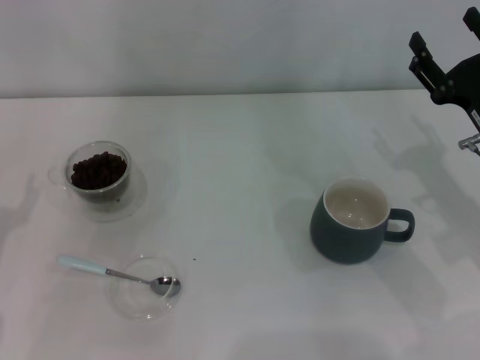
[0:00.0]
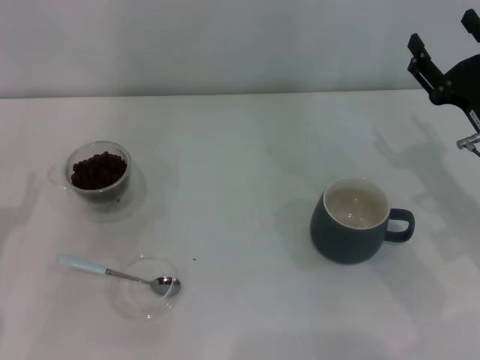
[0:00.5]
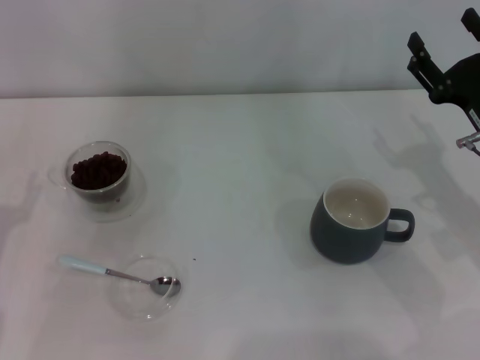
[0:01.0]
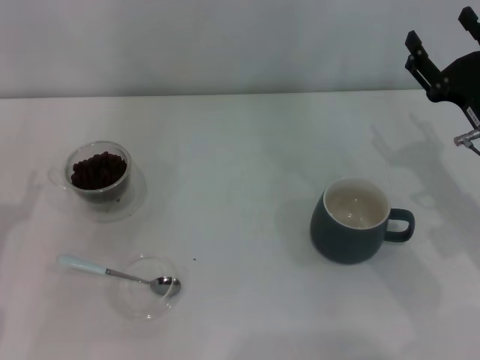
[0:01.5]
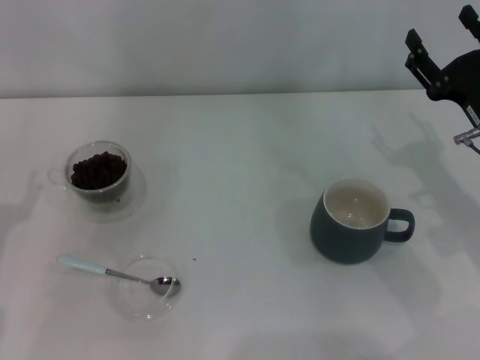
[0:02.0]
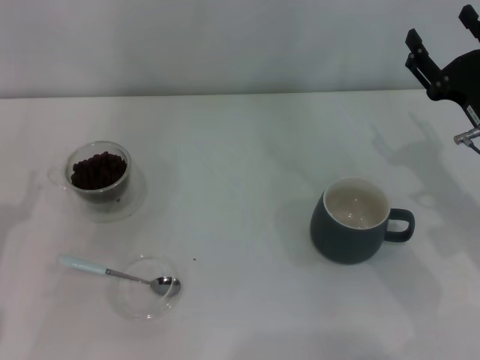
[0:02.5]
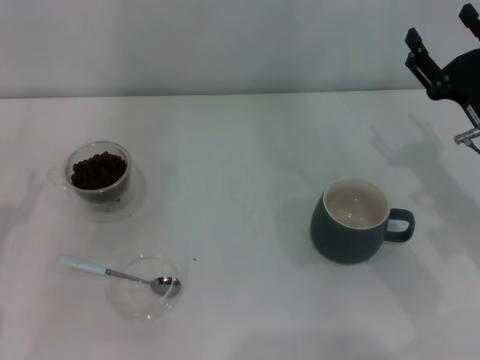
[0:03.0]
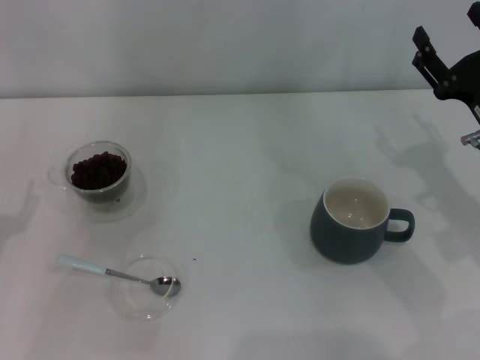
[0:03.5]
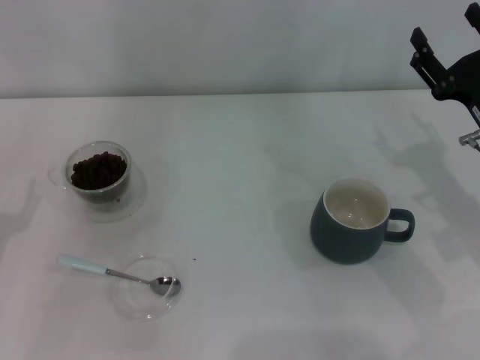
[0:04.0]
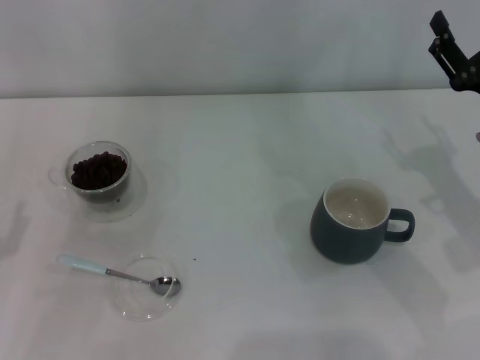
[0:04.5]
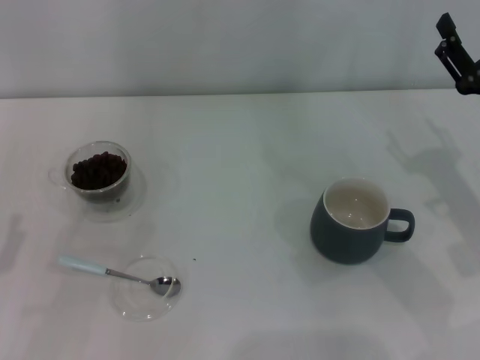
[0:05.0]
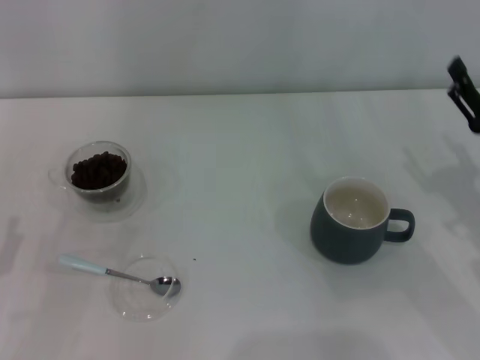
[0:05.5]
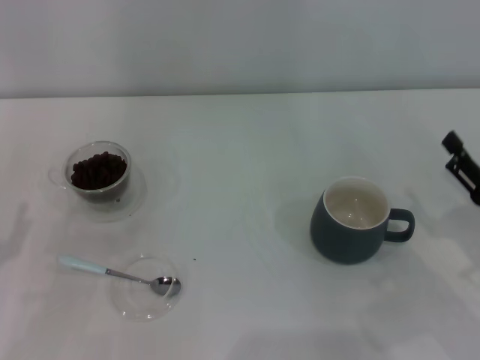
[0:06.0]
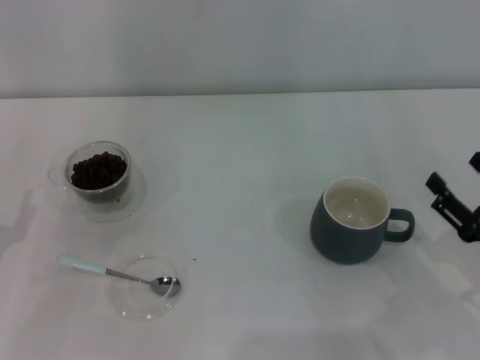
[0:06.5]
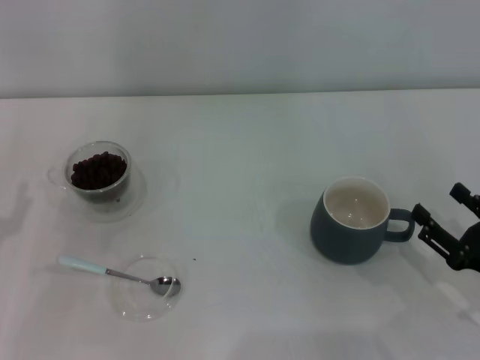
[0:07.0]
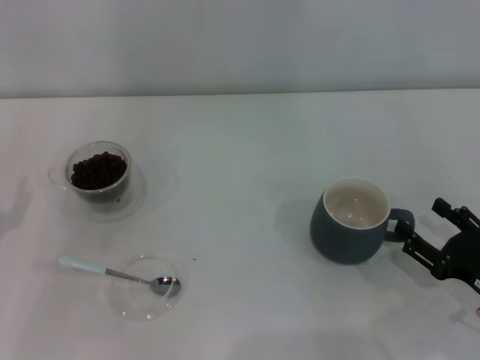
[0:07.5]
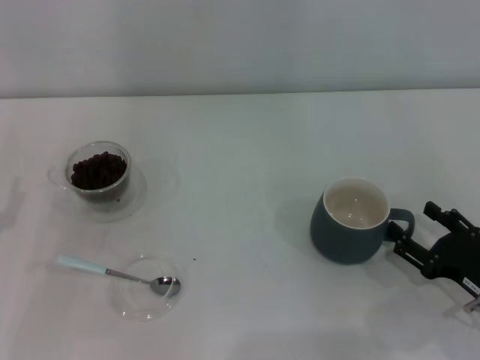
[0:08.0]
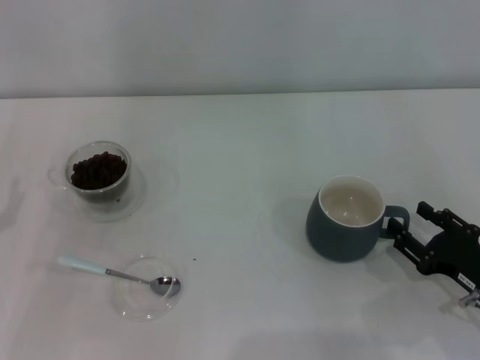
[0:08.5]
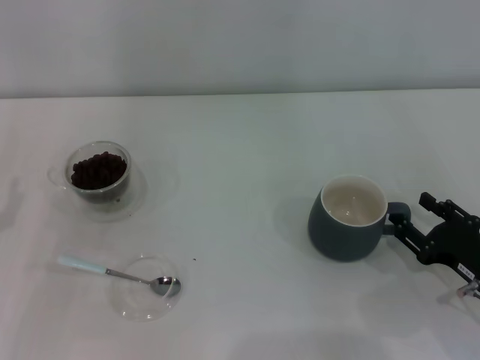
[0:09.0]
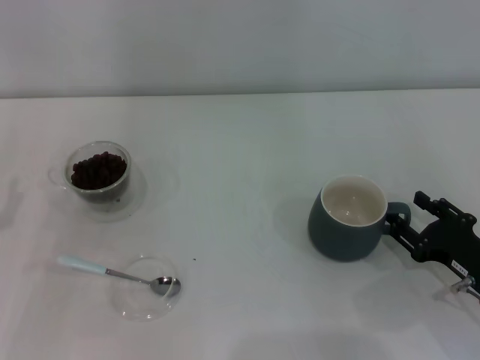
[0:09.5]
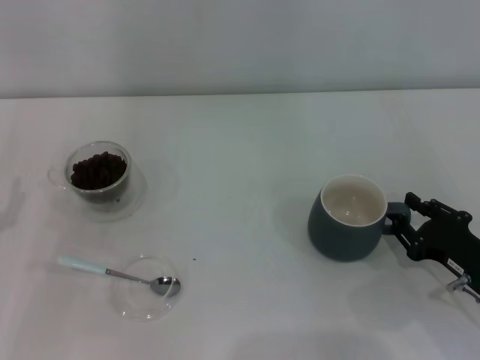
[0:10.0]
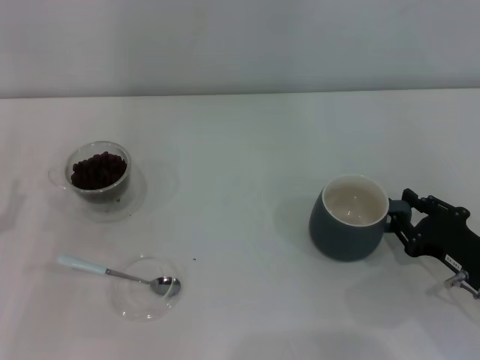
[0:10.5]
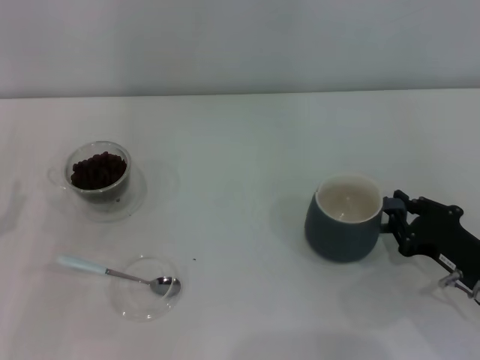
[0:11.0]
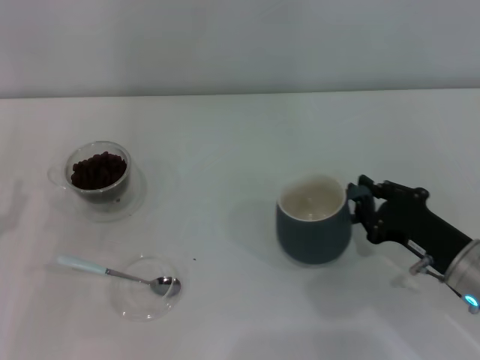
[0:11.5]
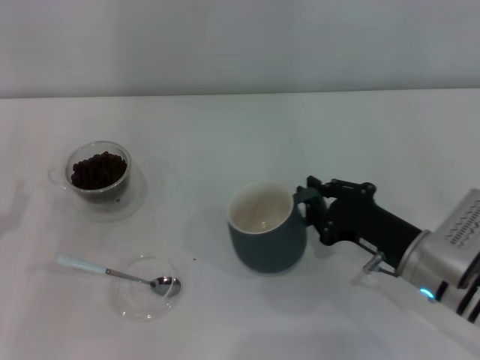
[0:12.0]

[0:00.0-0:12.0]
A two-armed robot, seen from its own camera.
Task of the whole recording: Use a blue spoon to take out the coffee beans from the glass and pour them into the gray cup.
0.0 to 2.0 s: Both grippers stay put.
2.0 to 4.0 s: The grippers move only a little.
4.0 to 6.0 s: The right gripper travels backward by roughly 10 cm.
6.0 to 8.0 s: The right gripper moves about 5 cm.
8.0 to 10.0 s: The right gripper closes its fingers.
10.0 to 12.0 s: The right gripper goes about 10 cm to the left, and closes.

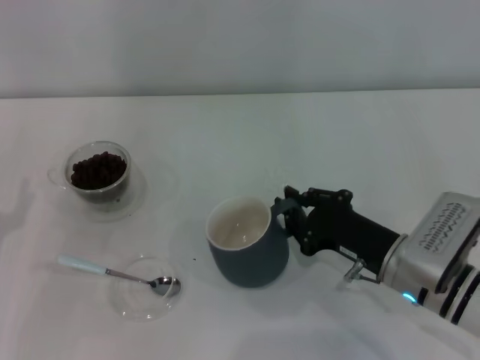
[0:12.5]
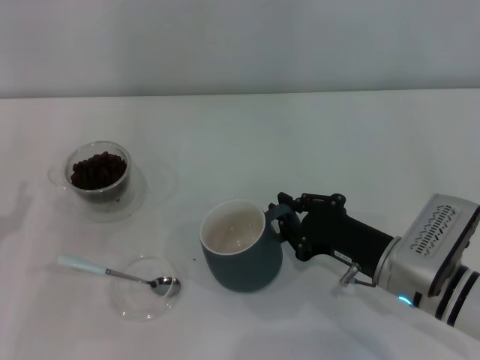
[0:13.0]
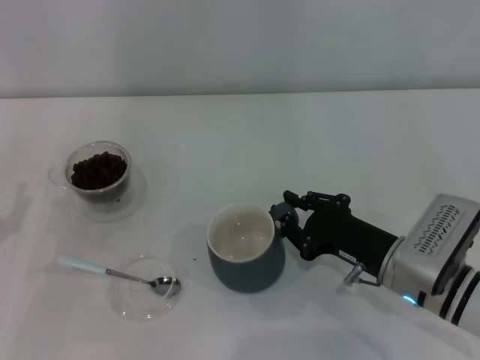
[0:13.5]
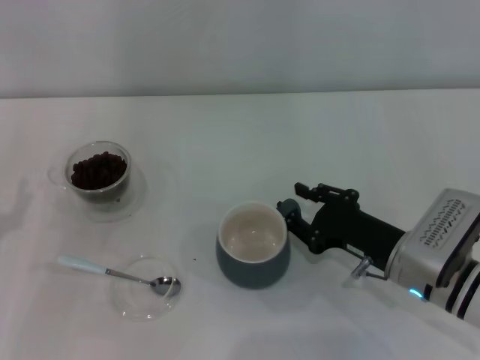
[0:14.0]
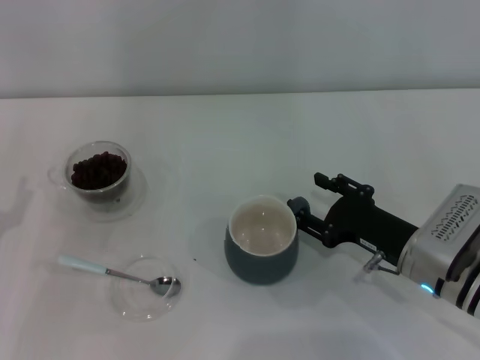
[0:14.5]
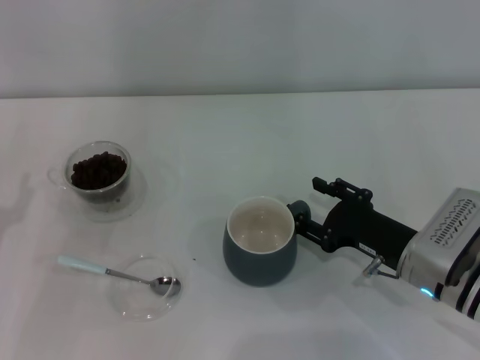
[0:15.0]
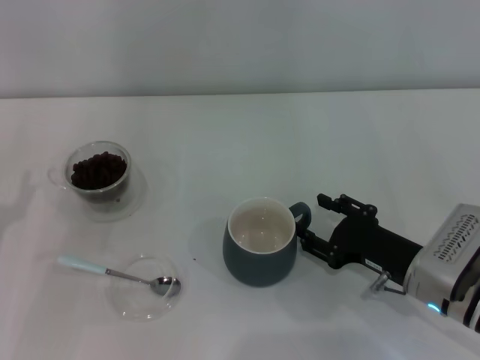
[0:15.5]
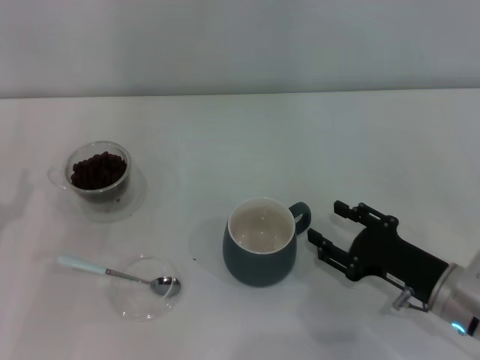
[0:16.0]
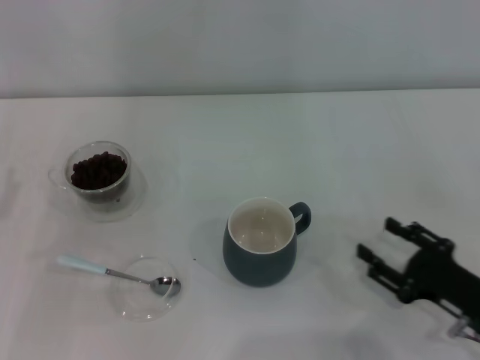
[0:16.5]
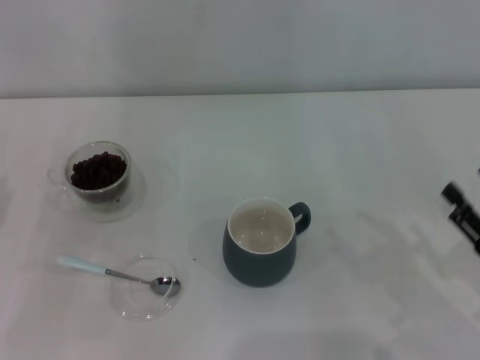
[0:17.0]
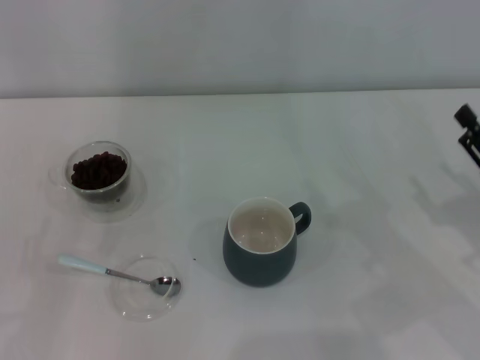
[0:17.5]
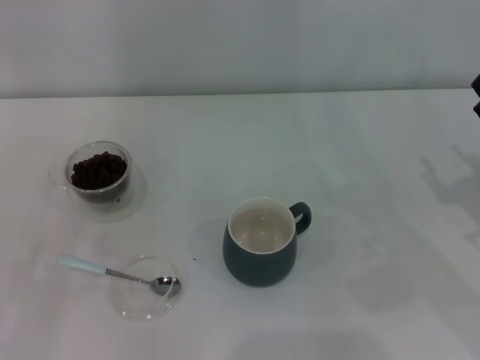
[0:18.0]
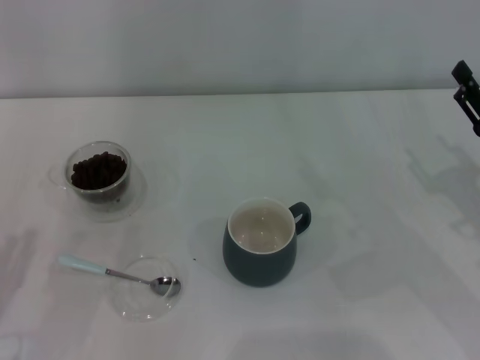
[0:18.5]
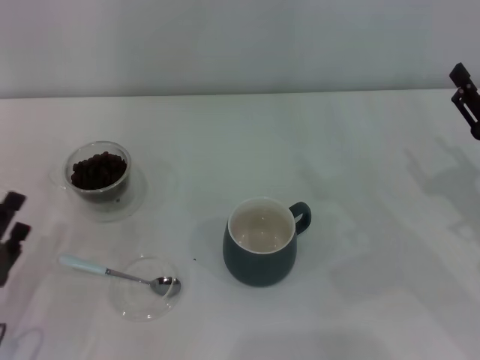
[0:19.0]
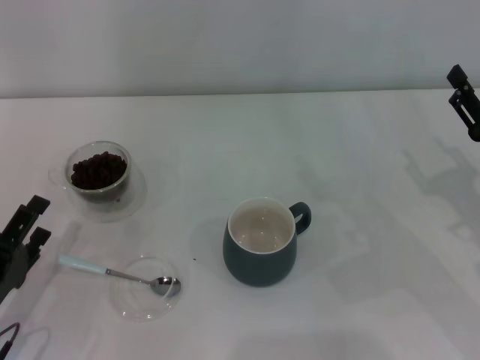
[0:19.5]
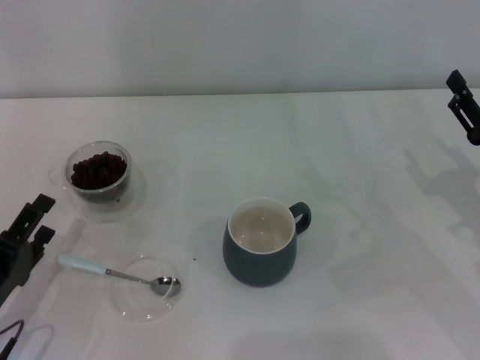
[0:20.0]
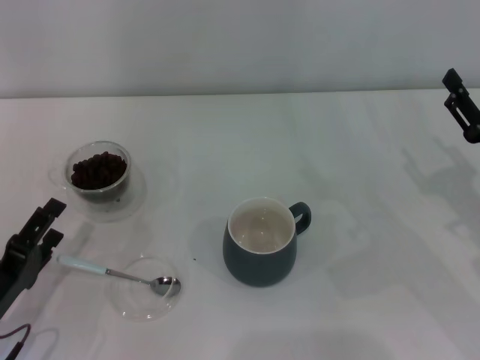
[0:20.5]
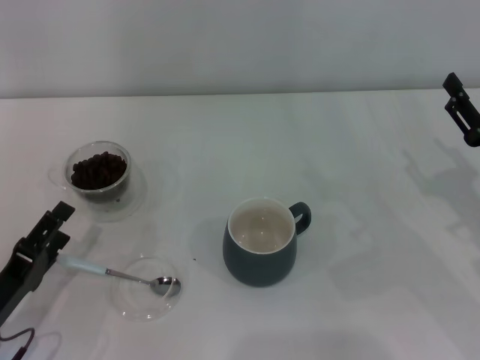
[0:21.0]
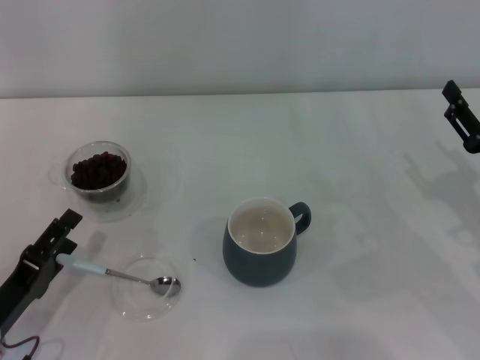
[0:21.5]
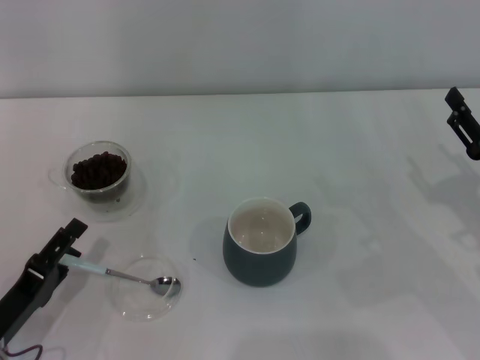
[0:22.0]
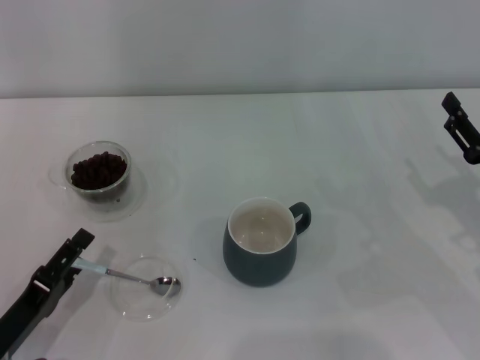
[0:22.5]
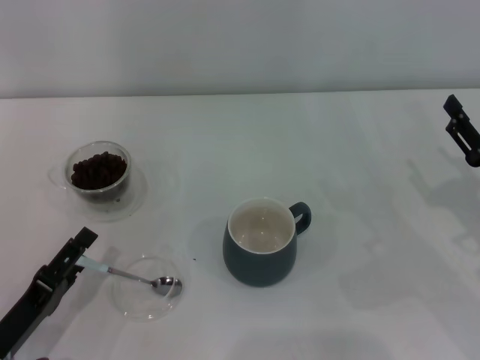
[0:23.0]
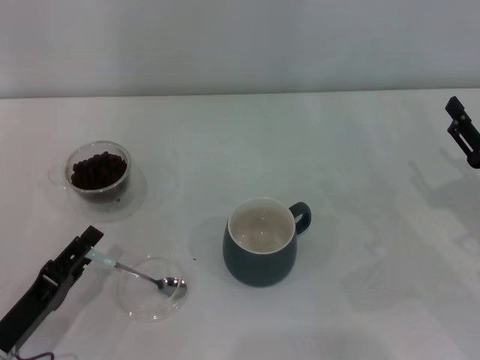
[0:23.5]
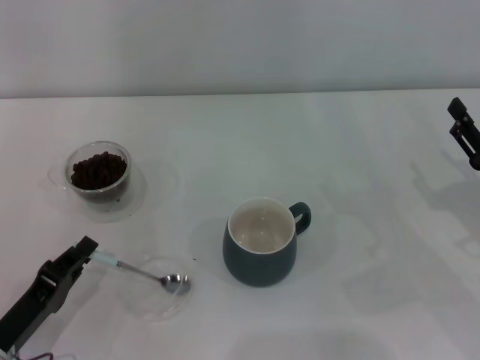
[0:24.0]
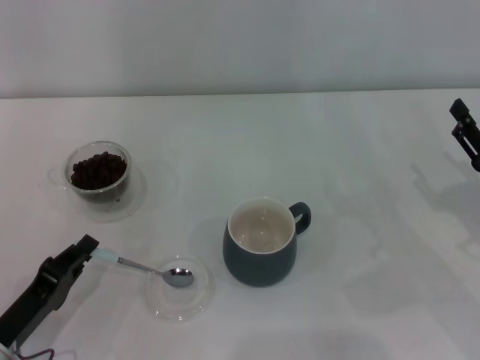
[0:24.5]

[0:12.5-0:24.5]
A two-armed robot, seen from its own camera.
Task of the whole recording: Use a blue spoon to take out the coffee beans from the glass and pour them into the gray cup.
Step, 12.5 to 16.0 s: Move the cup to the center of view with the left gripper.
12.5 to 14.5 s: The right gripper opens its fingers.
14.5 to 16.5 s: The right gripper shifts roughly 10 cm backward and to the right.
16.5 to 18.5 s: The left gripper goes about 10 cm backward. Meanwhile the right gripper goes about 10 cm forward and upward.
20.5 to 22.5 s: There are only small adjustments of the grippers.
22.5 to 24.5 s: The left gripper closes up.

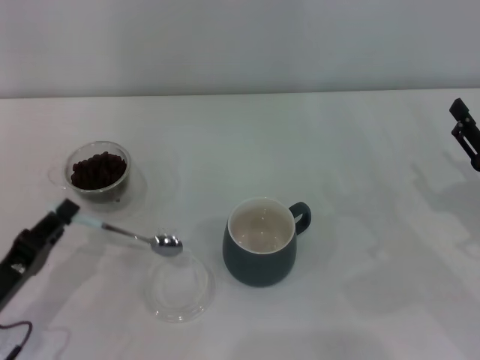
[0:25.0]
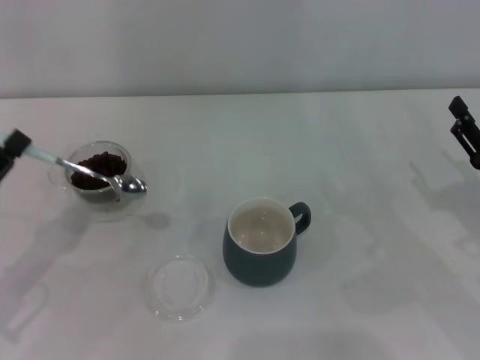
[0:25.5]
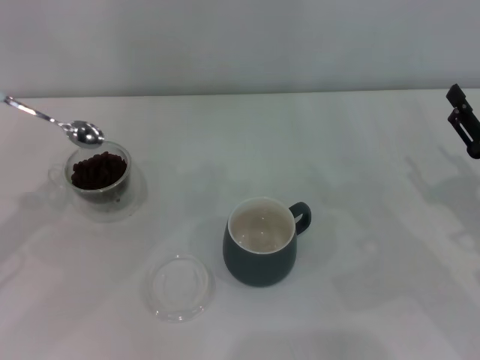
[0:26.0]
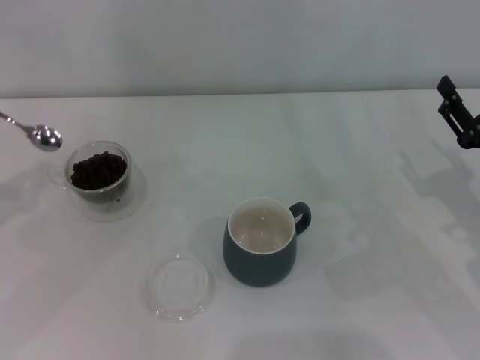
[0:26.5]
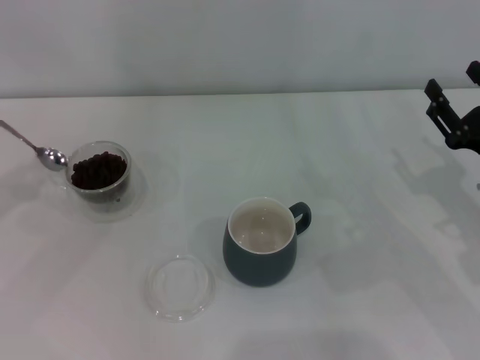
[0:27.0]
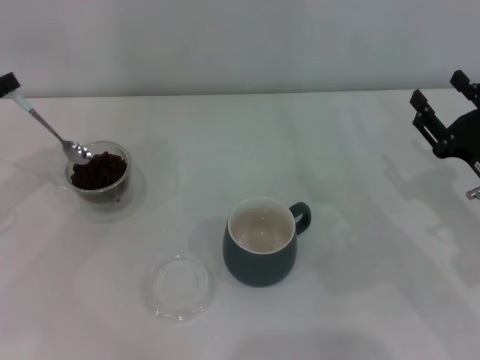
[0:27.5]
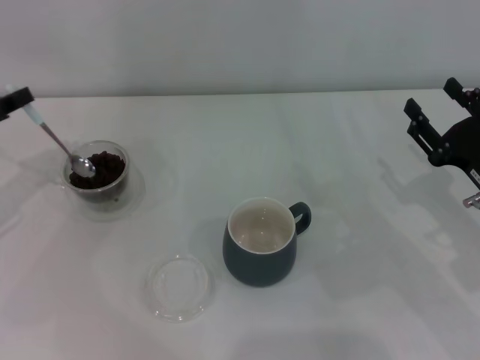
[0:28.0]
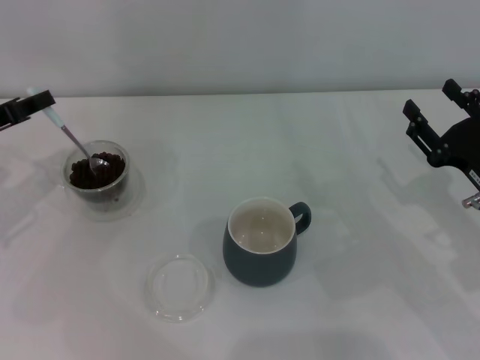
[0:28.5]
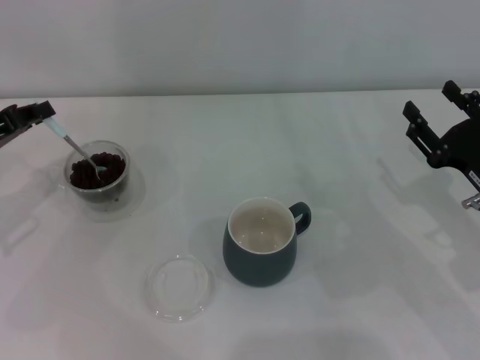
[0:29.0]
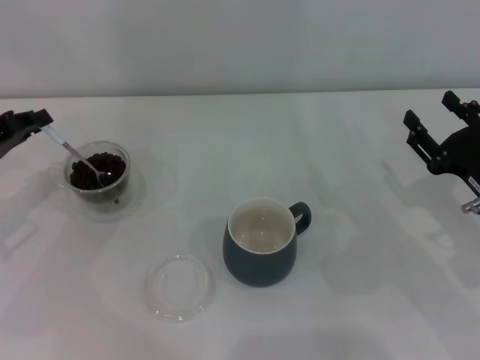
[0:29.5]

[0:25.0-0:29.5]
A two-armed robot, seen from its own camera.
Task of the whole recording: Use a blue spoon to take out the coffee beans from the glass and pour them into the gray cup.
25.0 to 27.0 s: The left gripper goes some 20 cm upward, forward and to the left.
27.0 to 29.5 s: The left gripper goes roughly 5 cm to the right.
